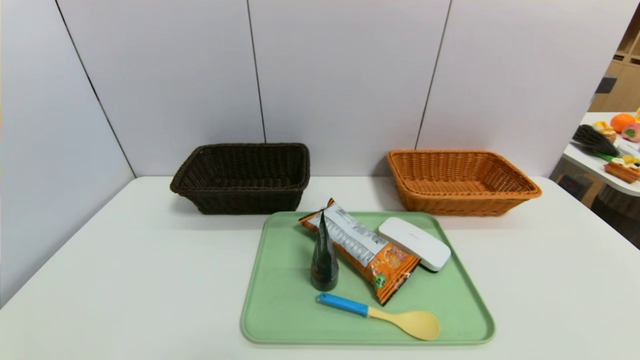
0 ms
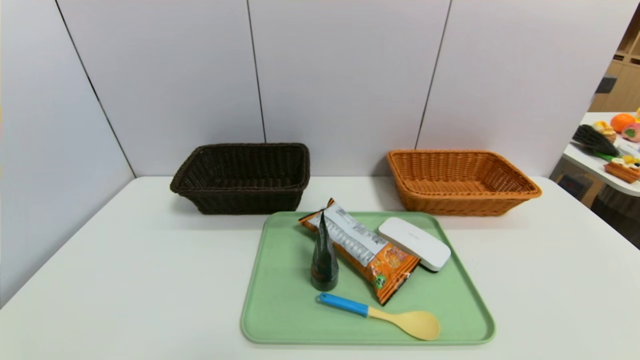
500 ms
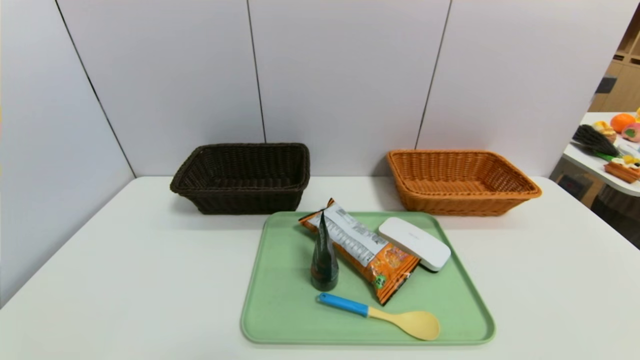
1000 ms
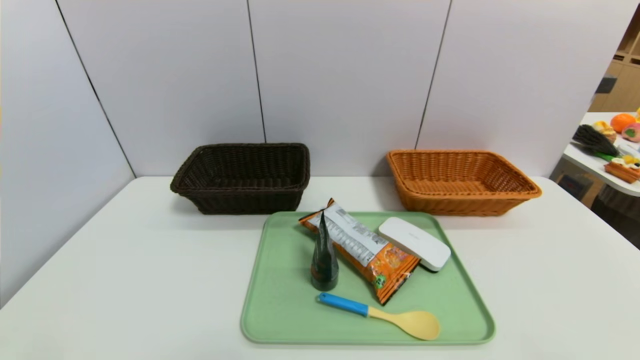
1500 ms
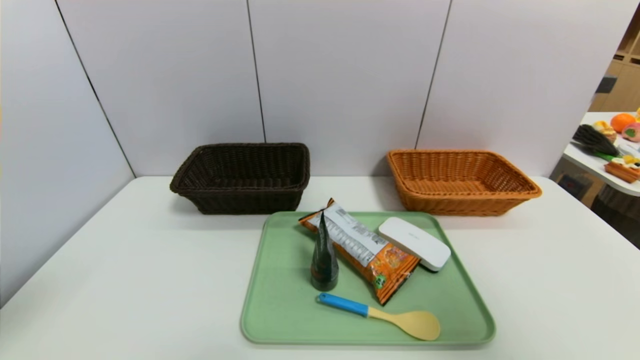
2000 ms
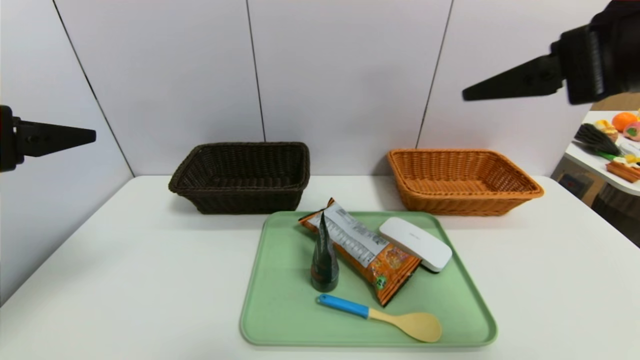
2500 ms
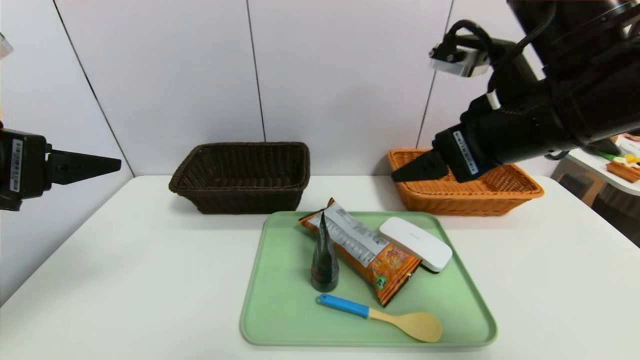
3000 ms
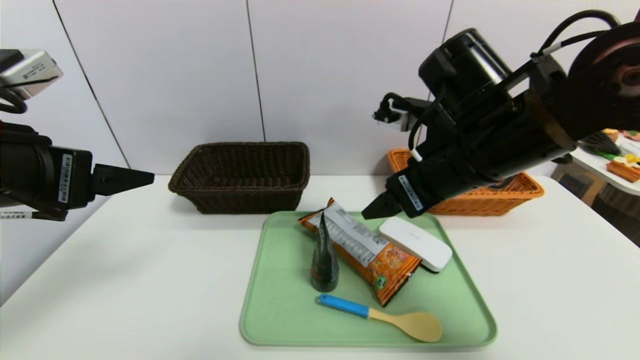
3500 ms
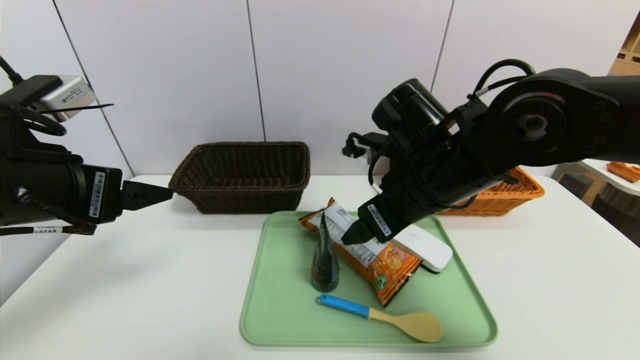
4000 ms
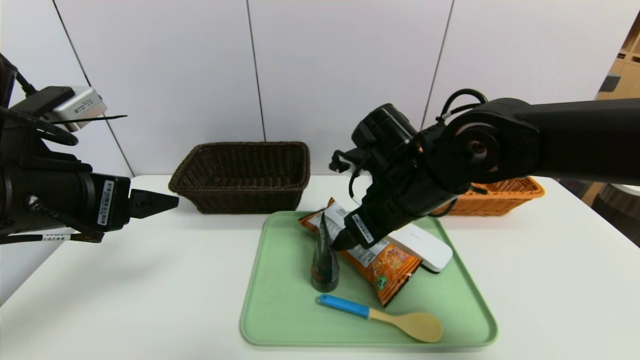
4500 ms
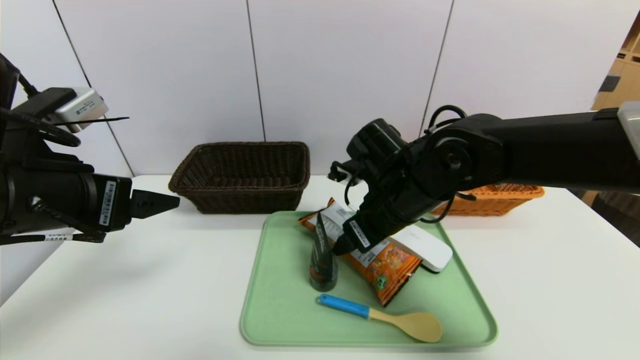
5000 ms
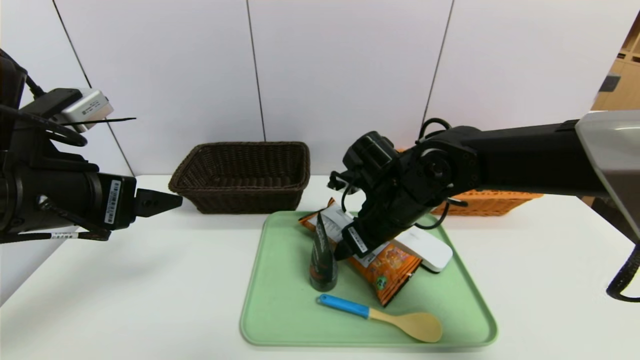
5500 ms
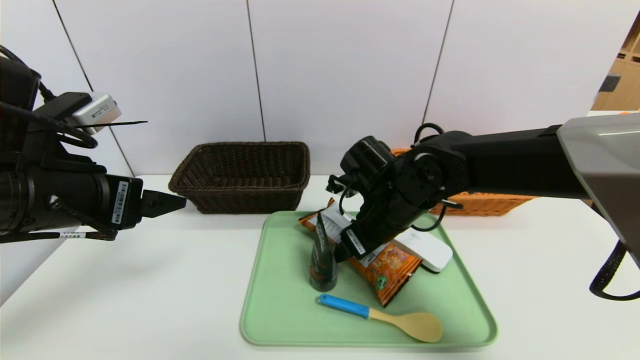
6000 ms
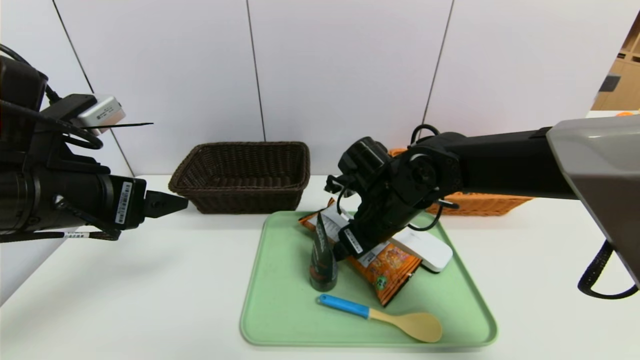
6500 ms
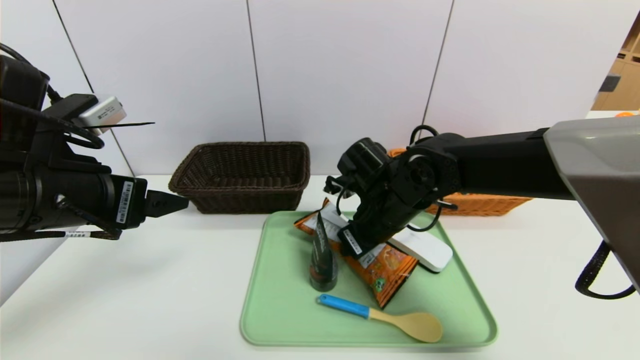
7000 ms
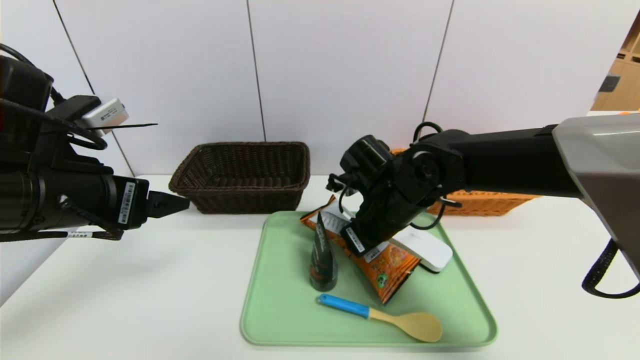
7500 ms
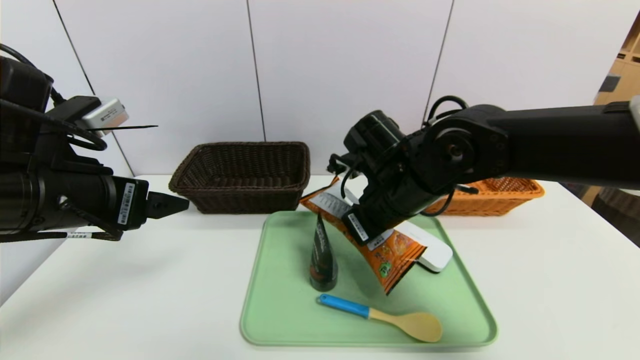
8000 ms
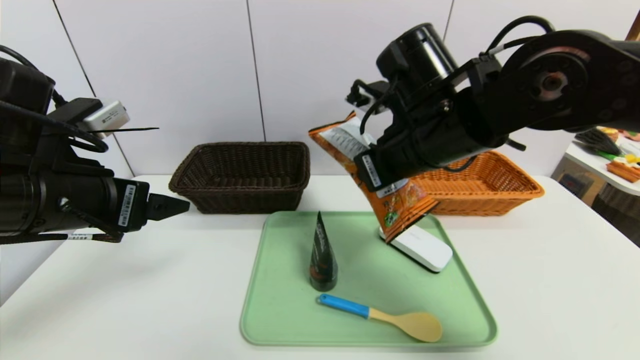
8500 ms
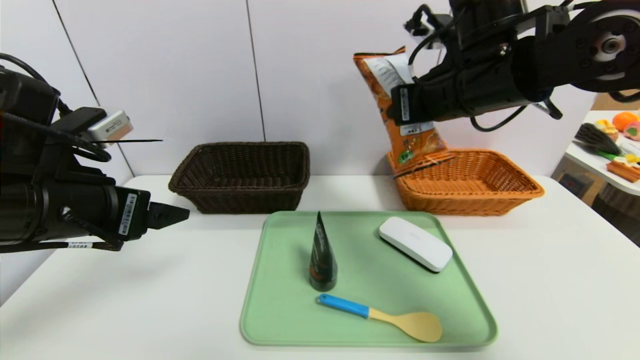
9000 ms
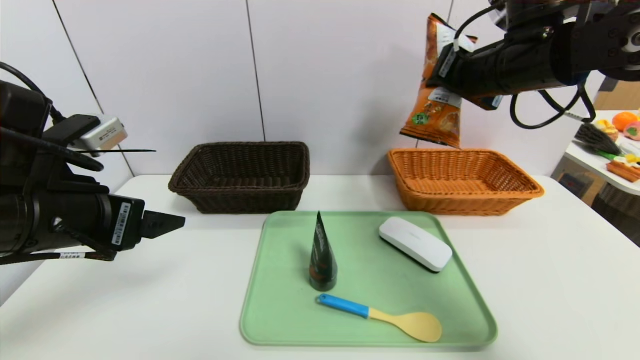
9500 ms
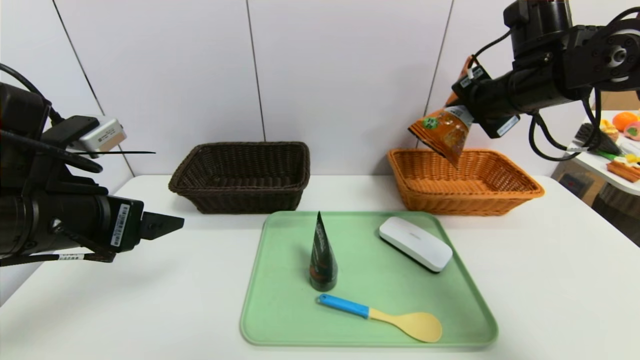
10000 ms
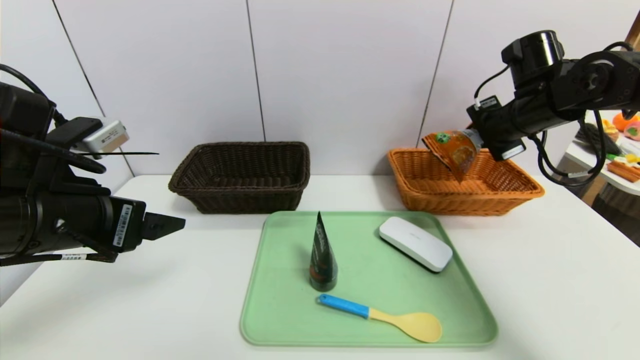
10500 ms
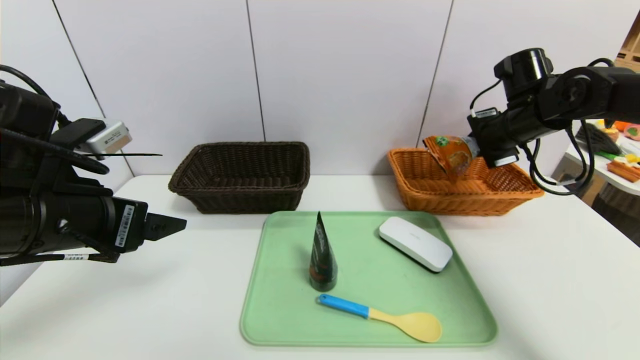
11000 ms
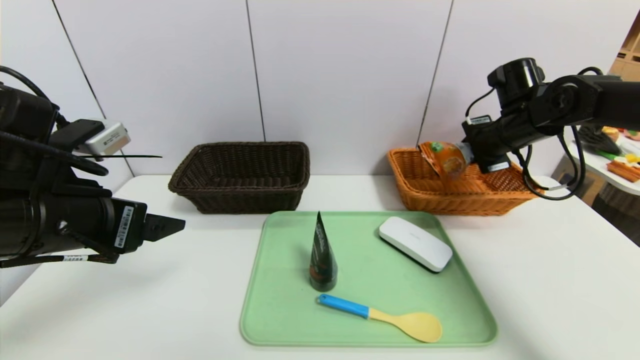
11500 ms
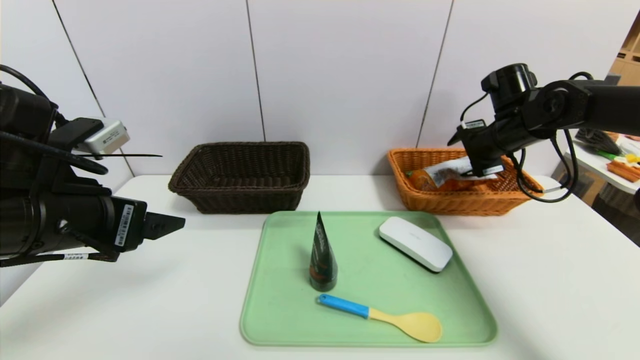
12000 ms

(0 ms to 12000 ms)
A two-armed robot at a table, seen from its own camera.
Task of the whole recording: place the food in the right basket with the right gripper, and place the non food items in the left basket with the left gripper.
0 ms - 2000 ms: The grippers both shift upward by roughly 30 cm.
2000 ms - 4000 ms: The left gripper heads forward, downward and to the right, covering some 15 cm, while the right gripper shifts approximately 35 cm to the left, forward and downward.
4000 ms - 6000 ms: The right gripper is displaced downward by approximately 5 cm.
6000 ms - 8000 ms: The right gripper closes up.
8000 ms - 10000 ms: The right gripper is displaced to the right, upward and forward by about 20 cm.
10000 ms - 12000 ms: The right gripper is displaced downward and forward by approximately 10 cm, and opens.

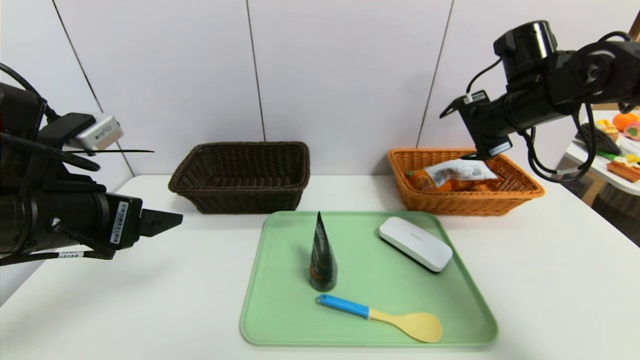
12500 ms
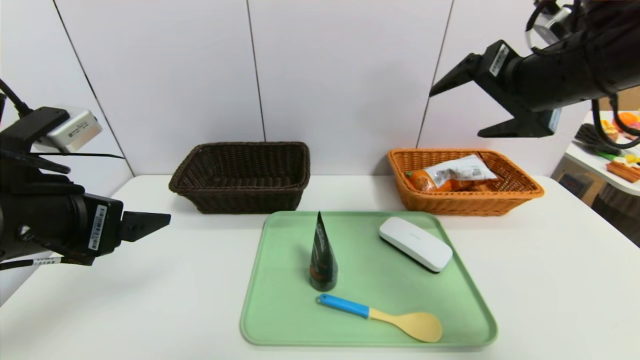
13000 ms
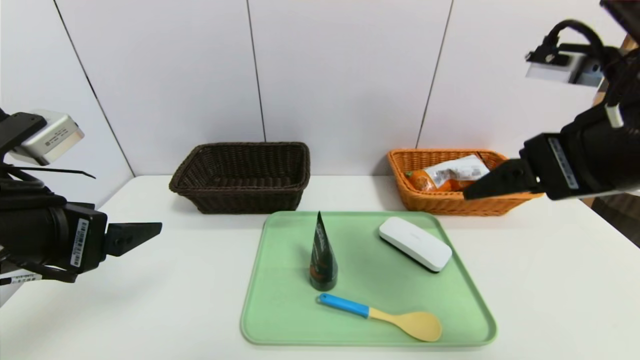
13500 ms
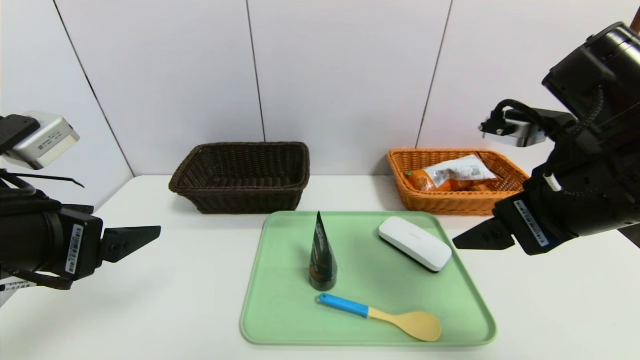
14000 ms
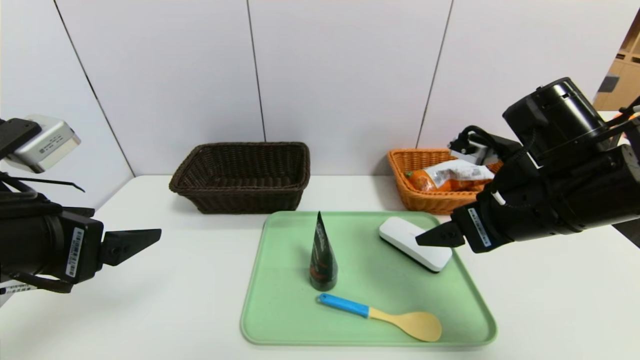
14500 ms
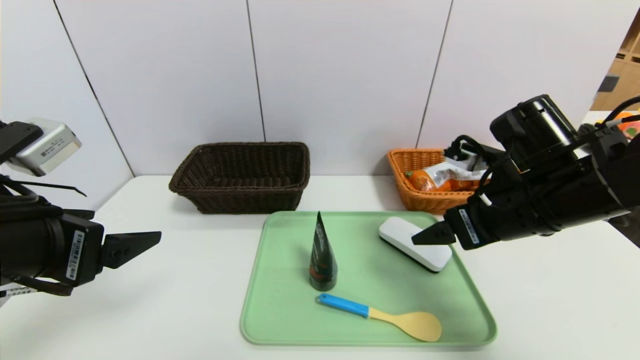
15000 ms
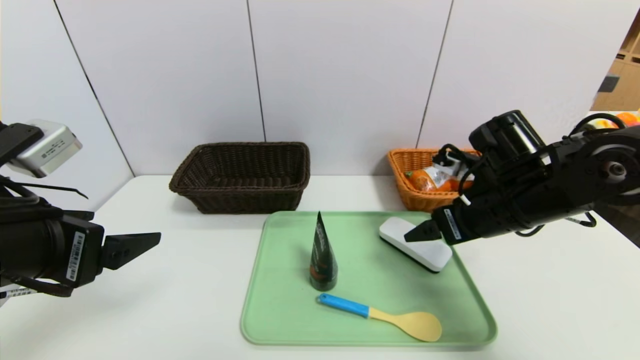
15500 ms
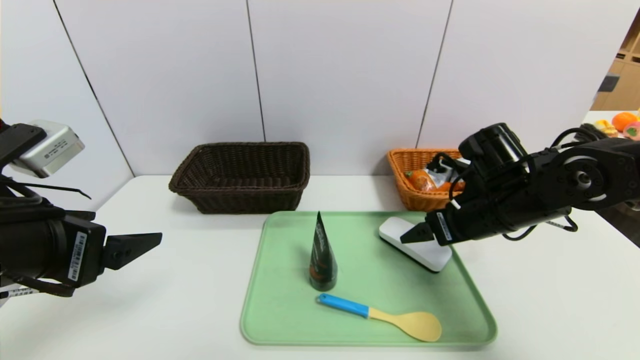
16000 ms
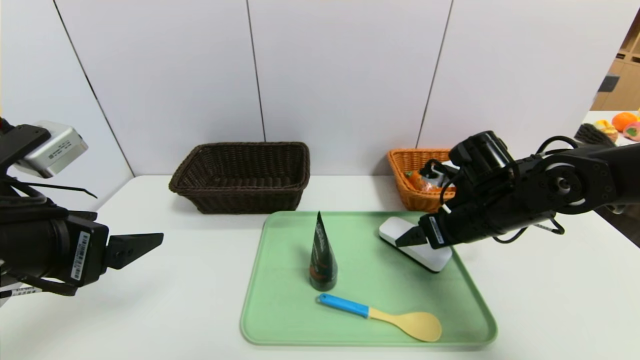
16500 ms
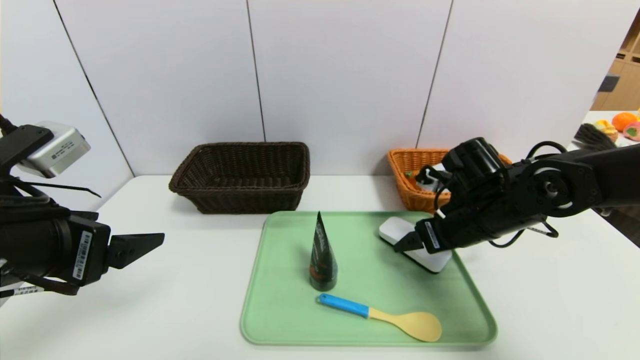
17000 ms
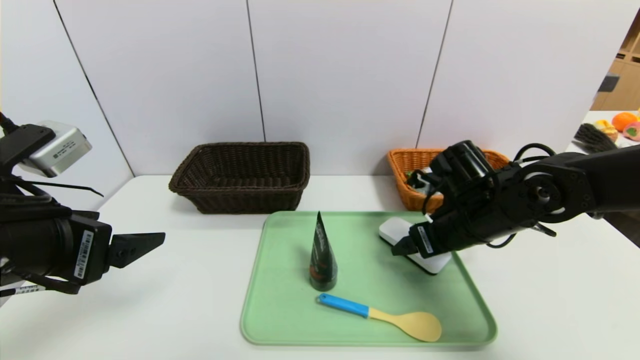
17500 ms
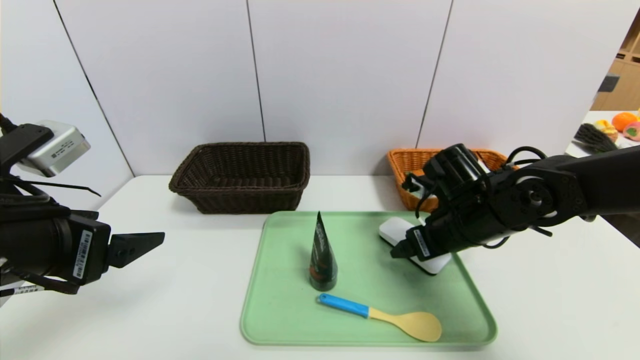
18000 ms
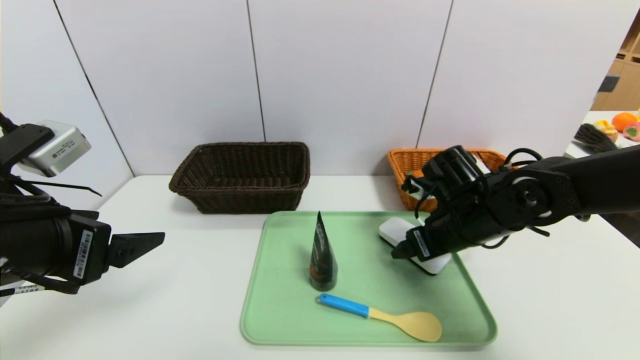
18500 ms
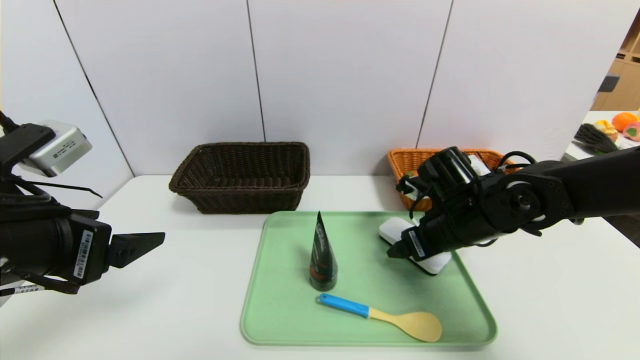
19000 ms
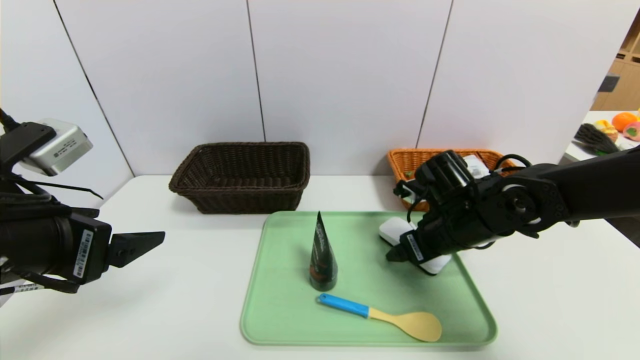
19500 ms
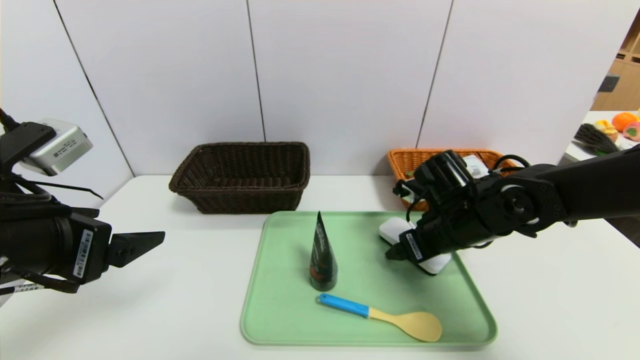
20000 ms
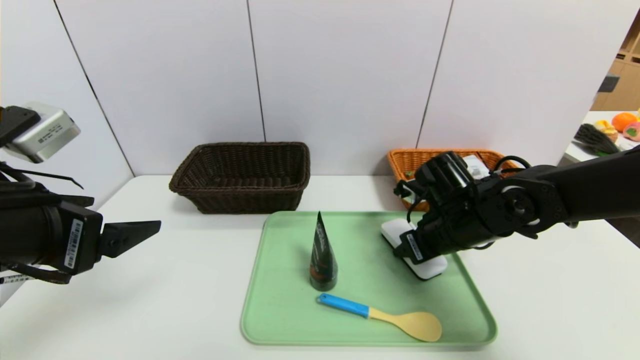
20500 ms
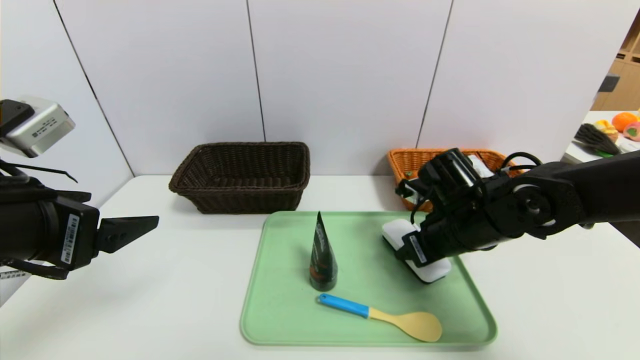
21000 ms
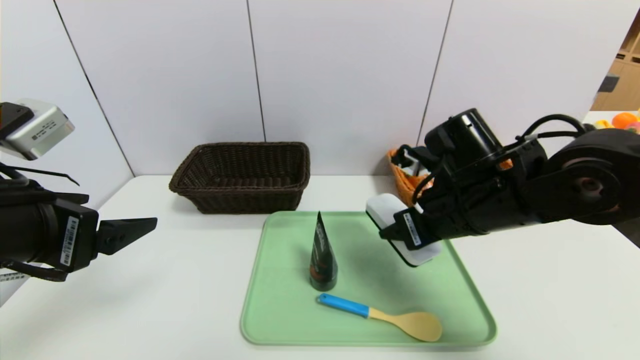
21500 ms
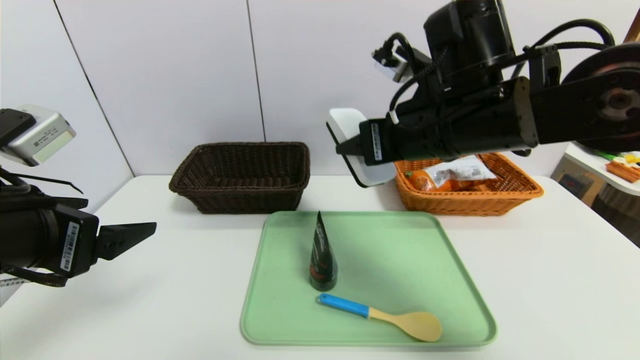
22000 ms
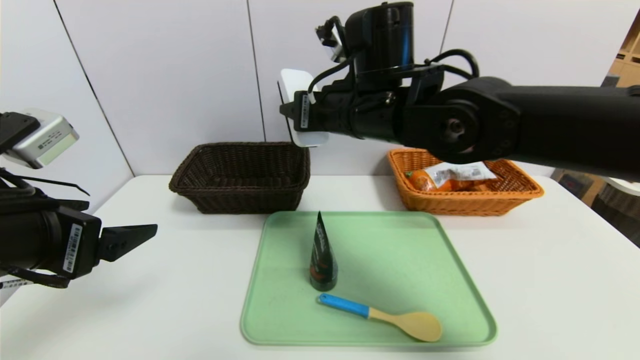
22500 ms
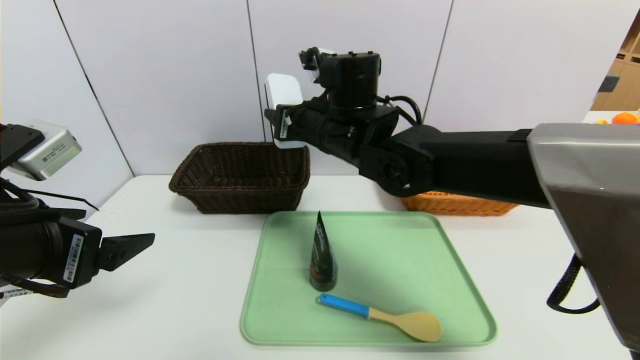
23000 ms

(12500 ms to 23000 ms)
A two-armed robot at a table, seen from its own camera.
Task of the whole recording: place the food in the right basket with the right gripper, and place the non food items in the left basket with the left gripper.
12500 ms - 14500 ms: The right gripper goes some 15 cm backward.
14500 ms - 16500 ms: The right gripper heads downward and forward, covering approximately 10 cm.
16500 ms - 19000 ms: There are only small adjustments of the grippers.
19000 ms - 21000 ms: The right gripper closes up.
21000 ms - 23000 ms: The right gripper is displaced to the left and upward by about 20 cm.
